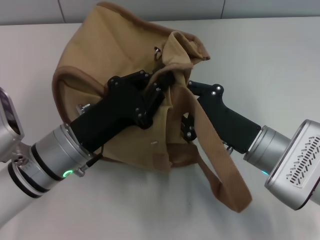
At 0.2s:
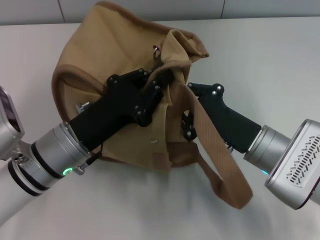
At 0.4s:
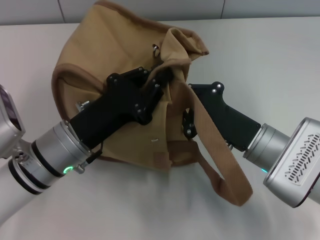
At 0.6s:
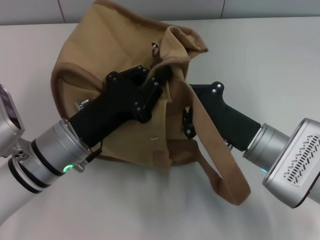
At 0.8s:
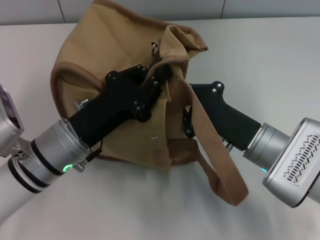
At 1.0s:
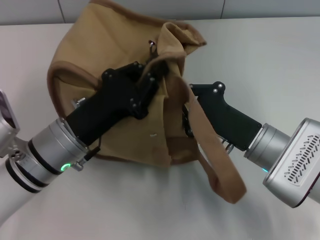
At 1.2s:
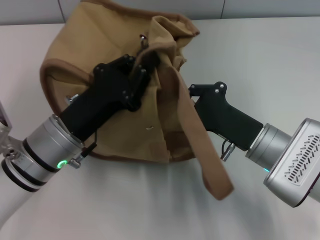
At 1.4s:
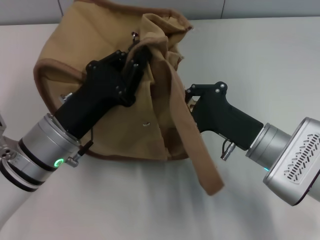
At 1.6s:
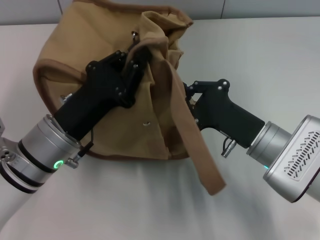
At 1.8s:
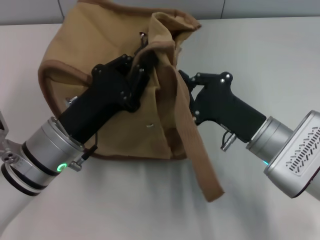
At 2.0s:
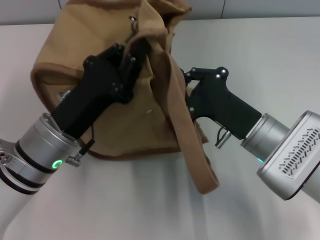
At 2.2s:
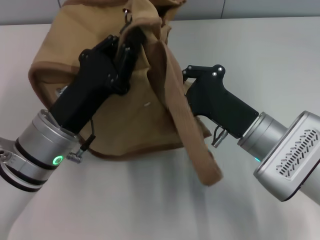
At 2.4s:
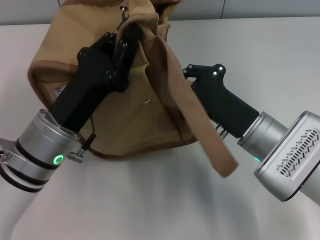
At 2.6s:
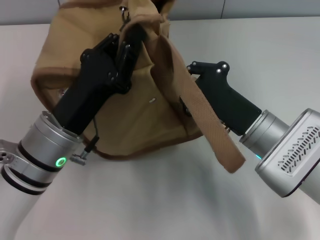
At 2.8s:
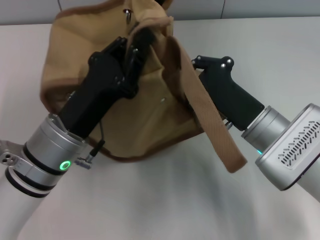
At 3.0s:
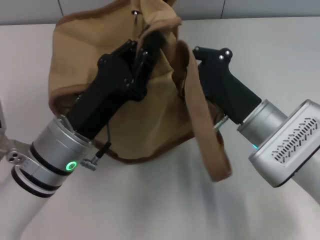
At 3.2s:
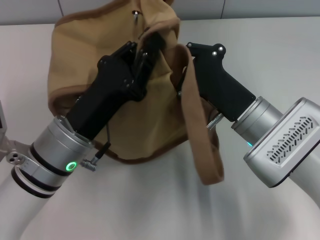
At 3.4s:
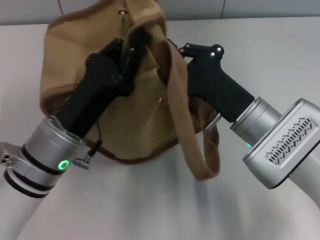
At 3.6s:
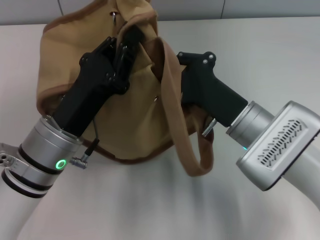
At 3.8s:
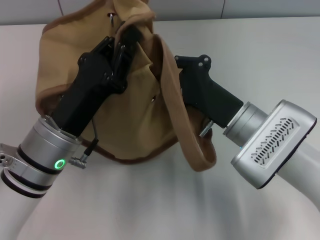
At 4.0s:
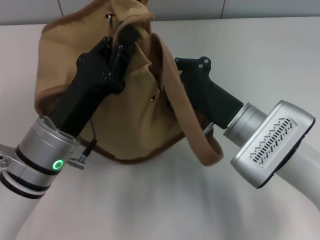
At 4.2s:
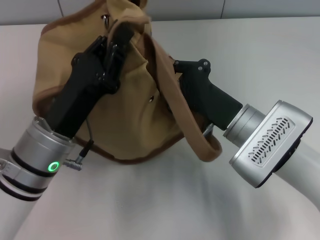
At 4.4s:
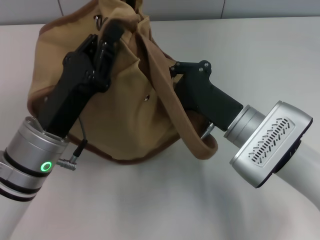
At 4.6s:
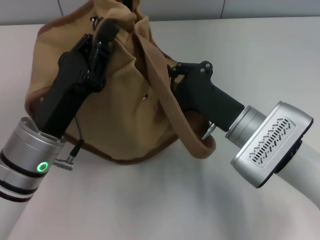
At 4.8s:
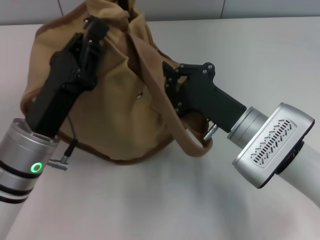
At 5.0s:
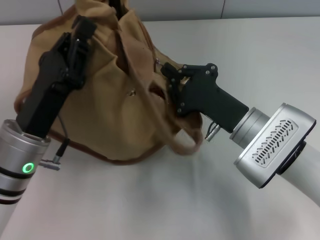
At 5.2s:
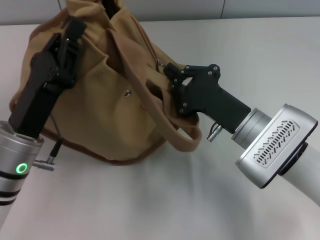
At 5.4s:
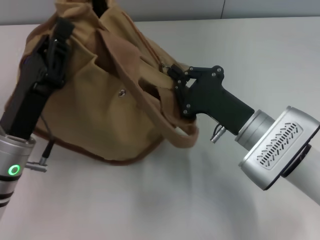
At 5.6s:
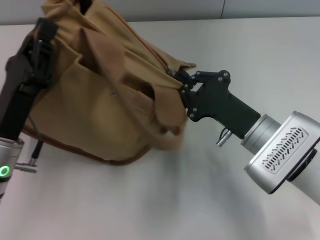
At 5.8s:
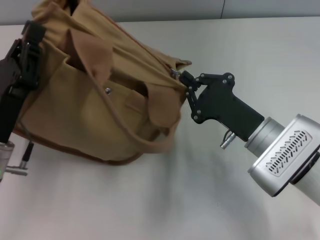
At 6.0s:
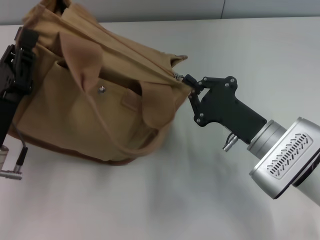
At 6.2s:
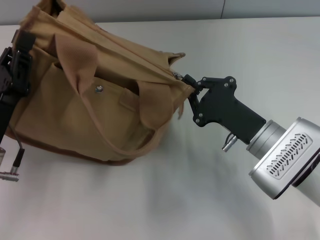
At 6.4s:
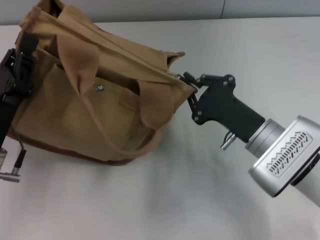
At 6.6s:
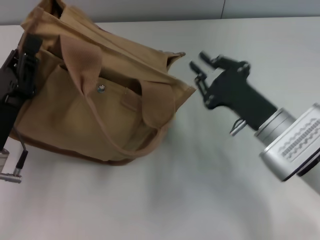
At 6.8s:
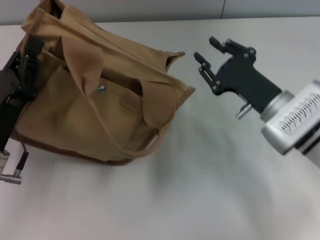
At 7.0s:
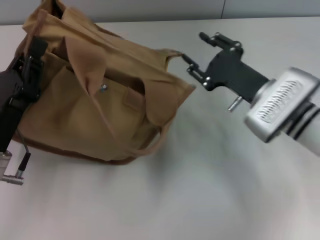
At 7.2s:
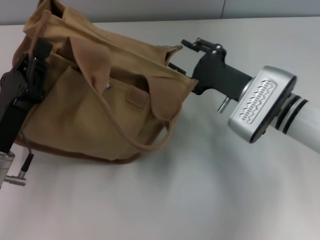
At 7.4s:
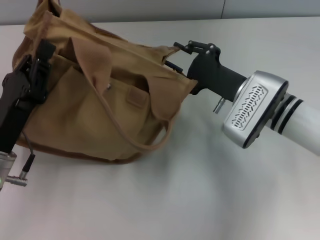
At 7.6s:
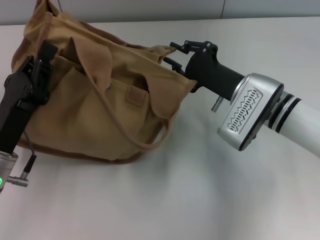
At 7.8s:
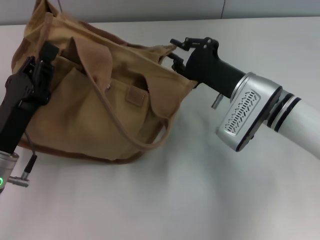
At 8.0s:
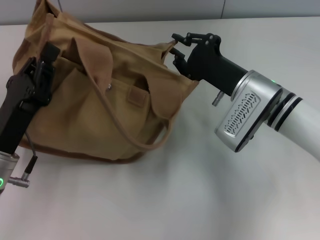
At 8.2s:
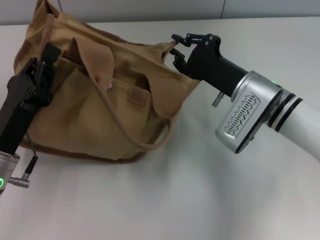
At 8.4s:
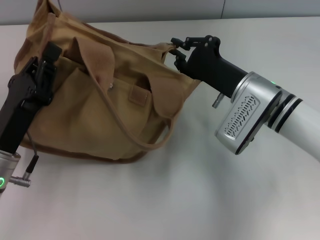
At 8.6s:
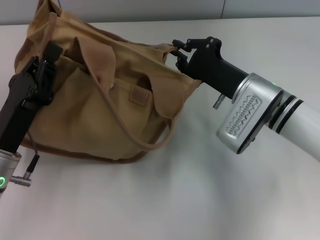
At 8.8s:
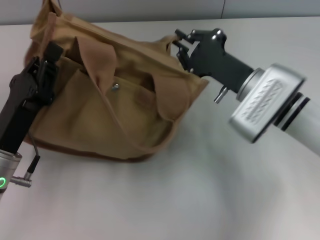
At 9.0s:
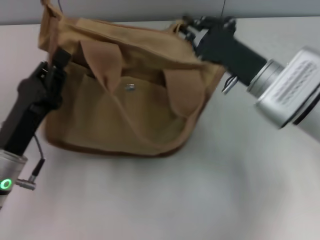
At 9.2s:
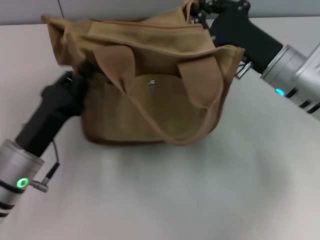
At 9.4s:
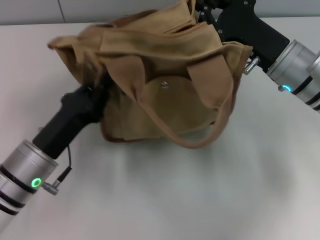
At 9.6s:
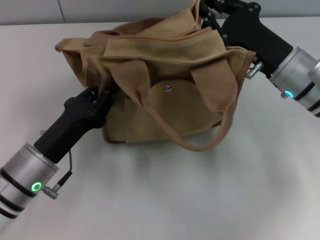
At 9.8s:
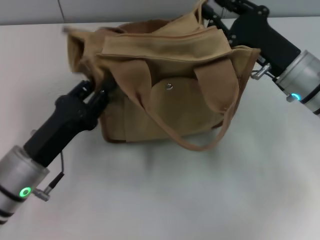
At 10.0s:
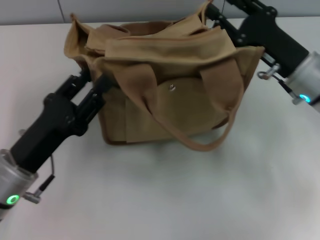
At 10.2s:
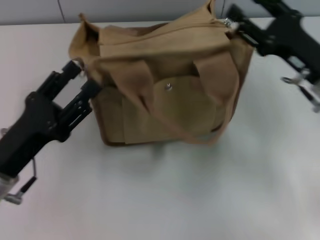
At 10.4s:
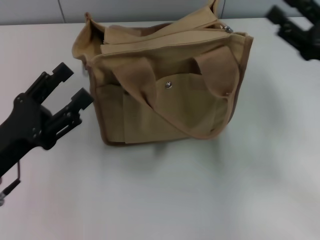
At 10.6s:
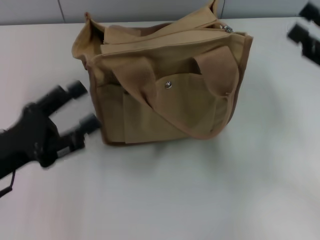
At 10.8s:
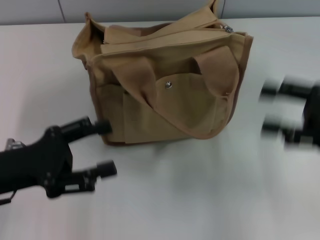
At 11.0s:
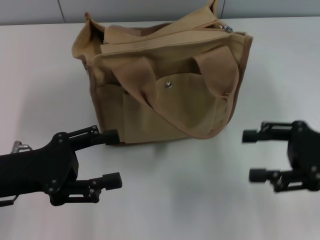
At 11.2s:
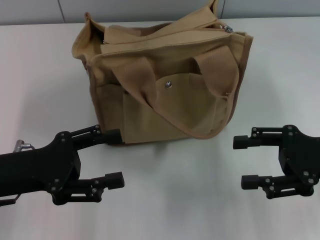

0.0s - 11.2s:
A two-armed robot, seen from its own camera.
Step, 0.0s - 6.6s: Pull open the zipper with your right hand.
Step, 6.8s - 10.0s: Grab the bag with your left hand.
0.0s - 1.6s: The right gripper closes.
4.8s - 6.4s: The left gripper moves to the left, about 5 cm.
6.4s - 8.0s: The right gripper shifts approximately 5 cm forward, and opens, then closes again.
8.0s - 9.6s: The right gripper moves roughly 5 cm.
9.6s - 11.2s: The left gripper travels to the left and upward by roughly 10 cm, and opens, while the right gripper is displaced backward and to the right by about 15 cm, and opens up.

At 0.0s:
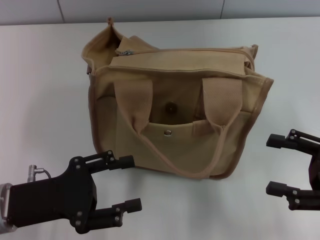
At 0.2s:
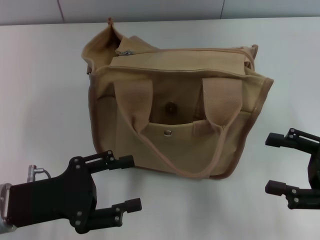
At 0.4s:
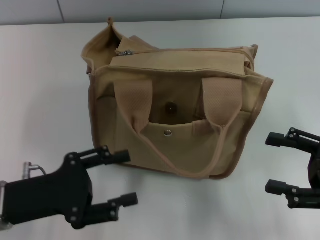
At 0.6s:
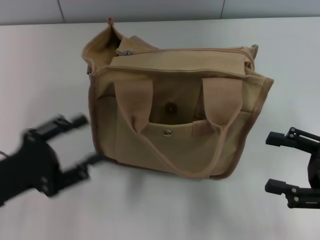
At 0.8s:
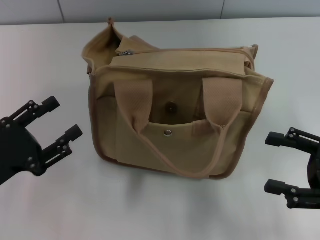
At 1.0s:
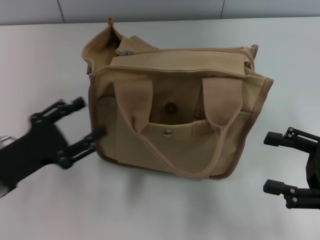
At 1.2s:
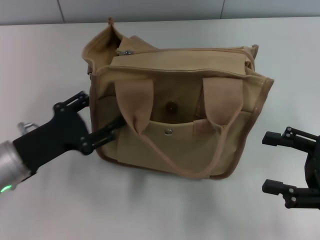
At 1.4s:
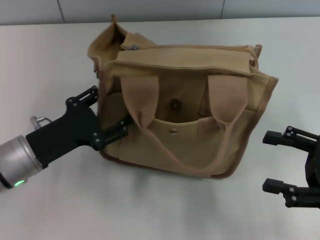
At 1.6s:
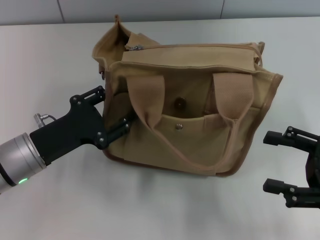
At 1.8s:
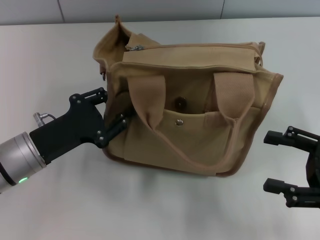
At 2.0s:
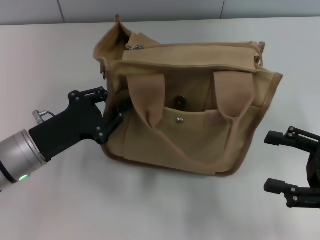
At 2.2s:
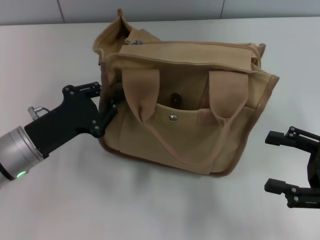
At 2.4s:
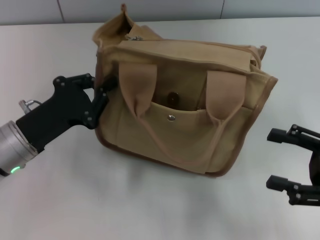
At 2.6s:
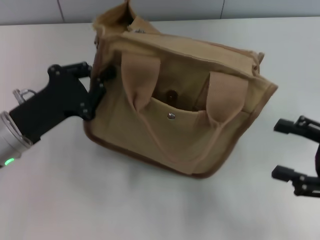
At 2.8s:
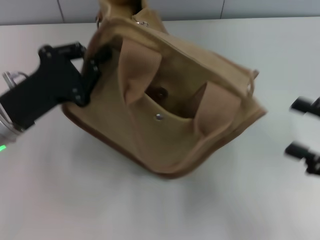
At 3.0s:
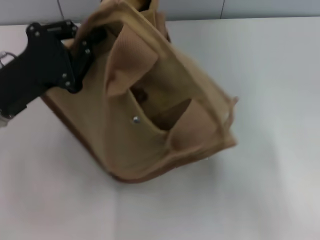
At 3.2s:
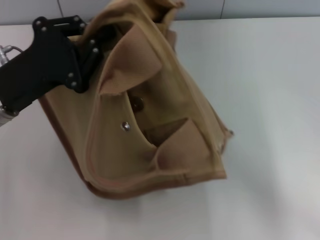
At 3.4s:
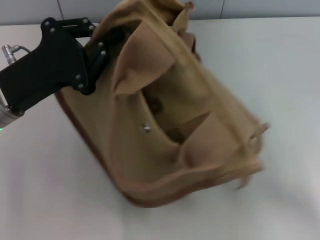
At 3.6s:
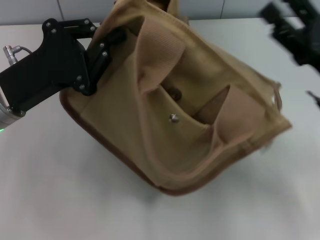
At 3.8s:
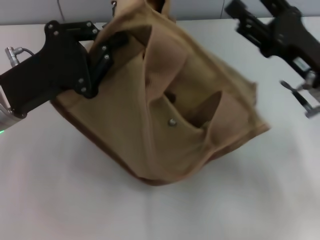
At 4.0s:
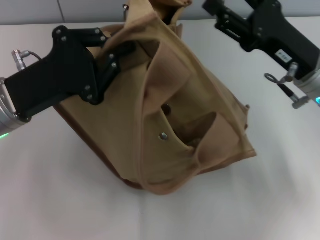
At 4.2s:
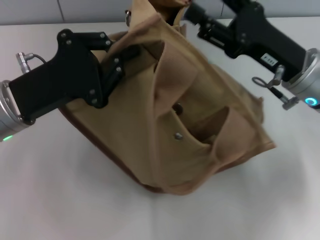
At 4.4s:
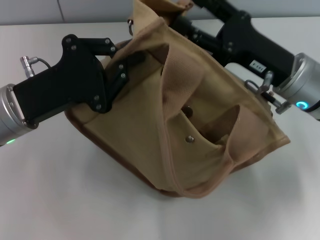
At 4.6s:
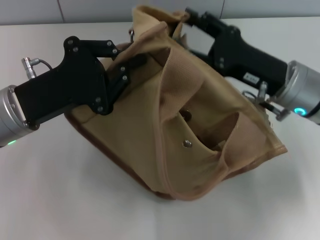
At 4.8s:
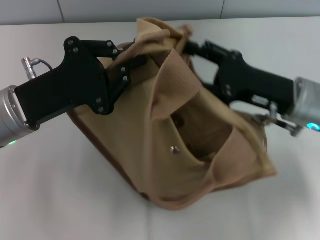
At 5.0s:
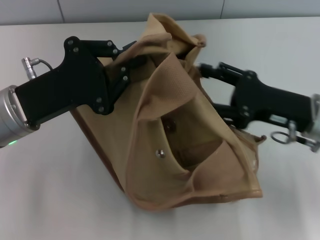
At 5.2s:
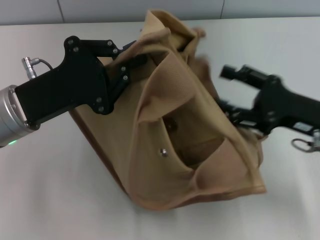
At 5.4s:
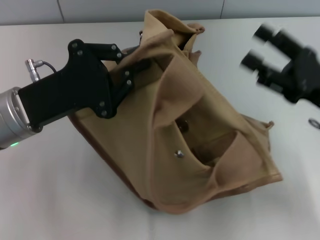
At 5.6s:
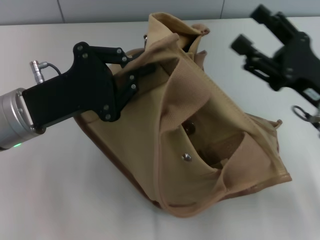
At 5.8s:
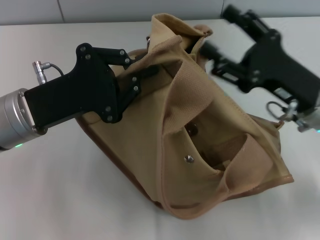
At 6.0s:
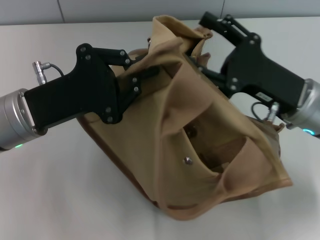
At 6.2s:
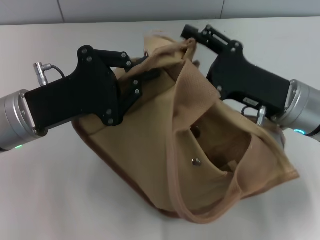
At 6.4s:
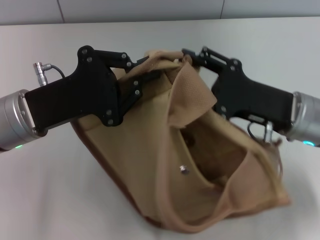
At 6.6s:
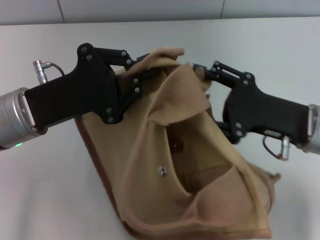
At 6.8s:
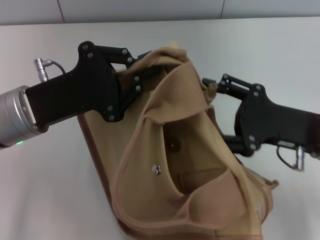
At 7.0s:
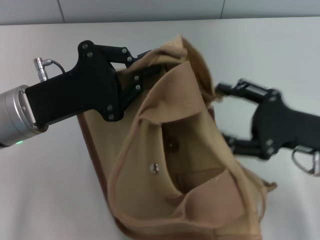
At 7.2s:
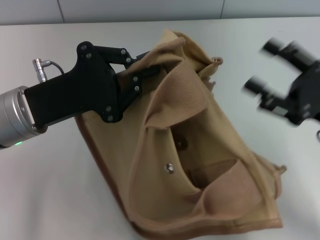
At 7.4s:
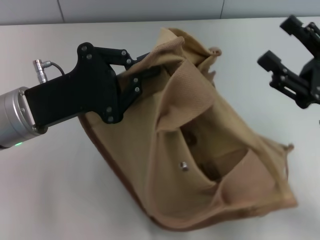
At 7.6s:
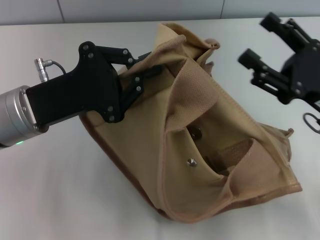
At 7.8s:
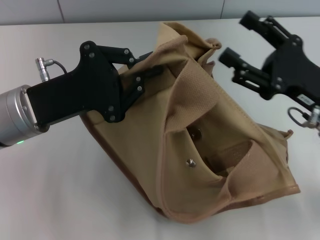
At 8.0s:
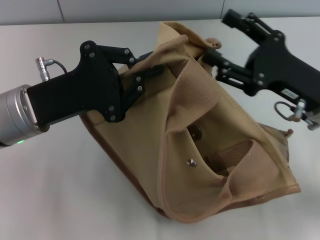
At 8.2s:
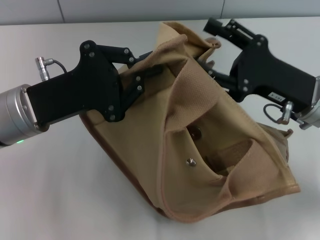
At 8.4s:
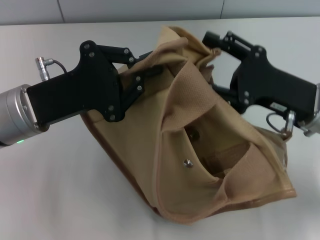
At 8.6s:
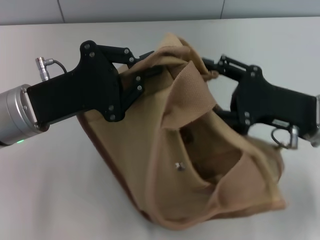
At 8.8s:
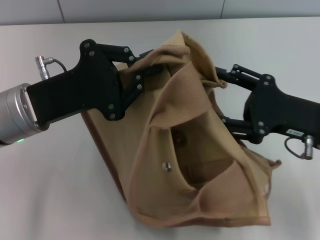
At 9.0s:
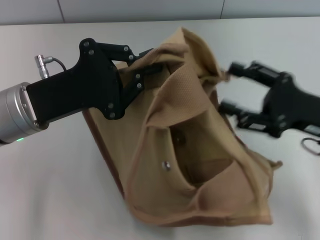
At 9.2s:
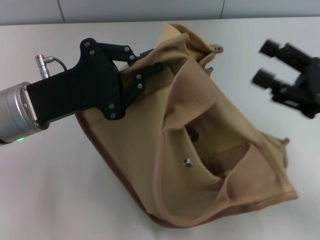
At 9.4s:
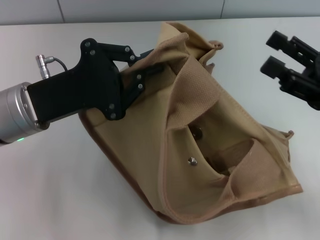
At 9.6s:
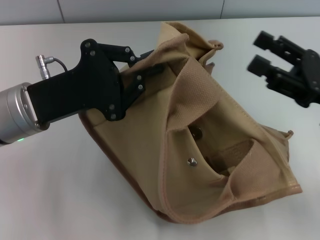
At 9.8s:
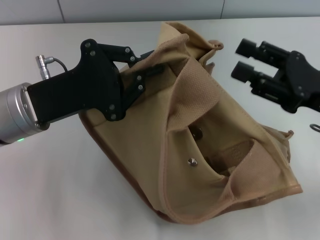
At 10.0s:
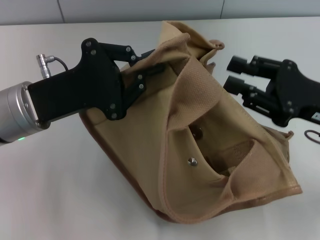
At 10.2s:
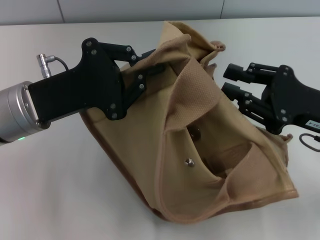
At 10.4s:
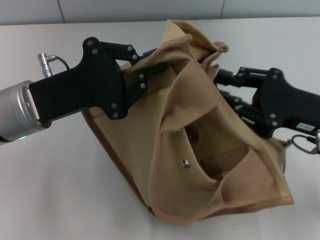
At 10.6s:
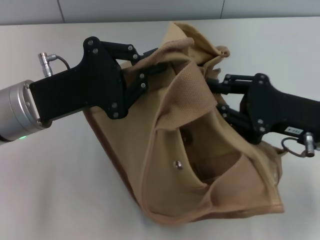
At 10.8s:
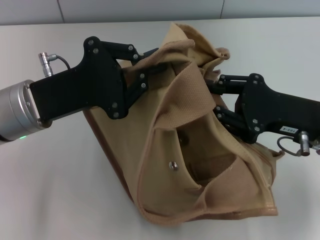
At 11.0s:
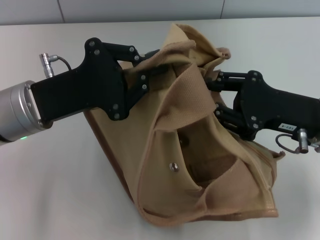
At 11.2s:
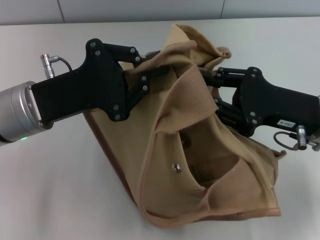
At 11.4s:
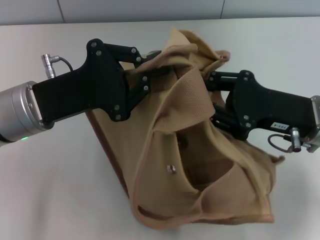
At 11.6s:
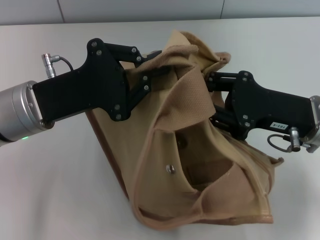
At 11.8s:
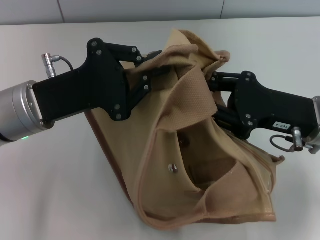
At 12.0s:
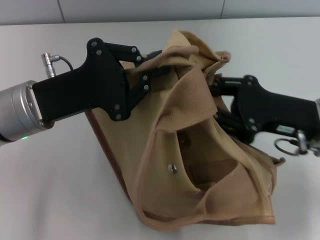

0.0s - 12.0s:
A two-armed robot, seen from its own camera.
0.0s - 1.6s: The left gripper moves forward, about 5 cm.
1.6s - 3.0s: The left gripper travels upward by about 5 cm, and closes.
3.0s - 4.4s: The right gripper shifts about 20 cm to the left and forward.
6.0s - 7.6s: The right gripper shifts approximately 5 cm to the right.
9.0s - 10.4s: The right gripper closes its fingers.
